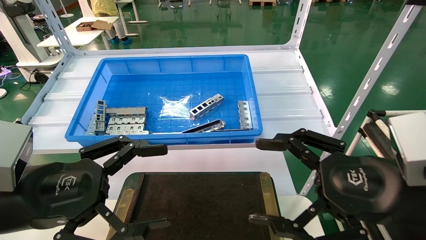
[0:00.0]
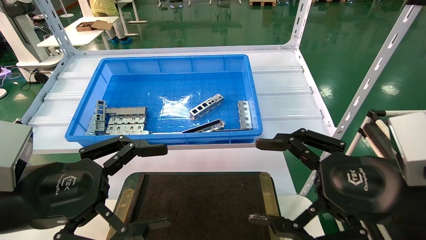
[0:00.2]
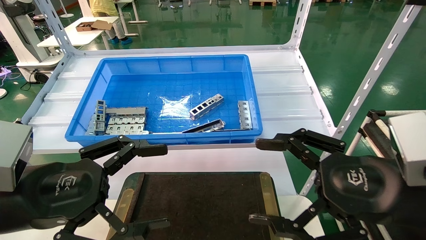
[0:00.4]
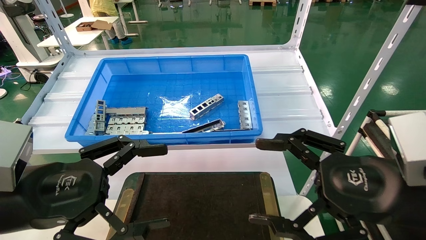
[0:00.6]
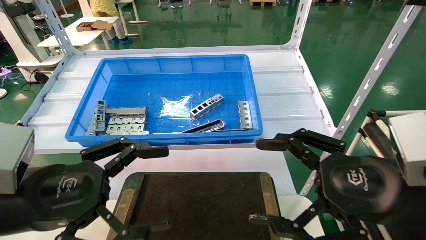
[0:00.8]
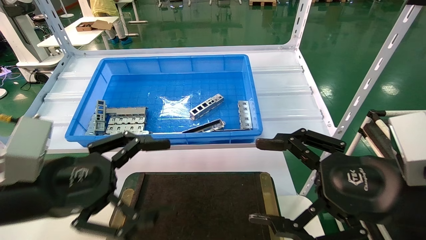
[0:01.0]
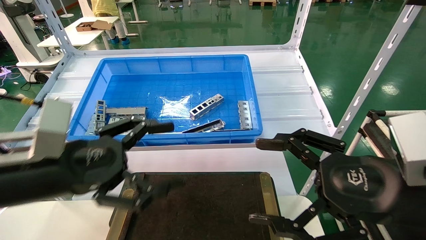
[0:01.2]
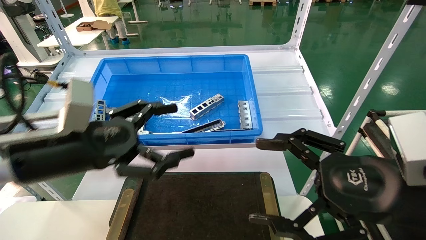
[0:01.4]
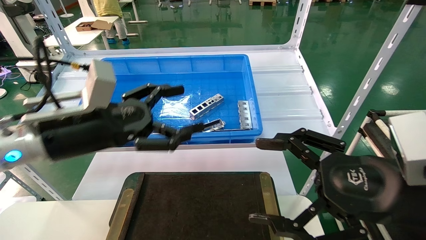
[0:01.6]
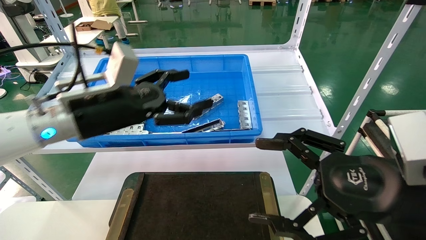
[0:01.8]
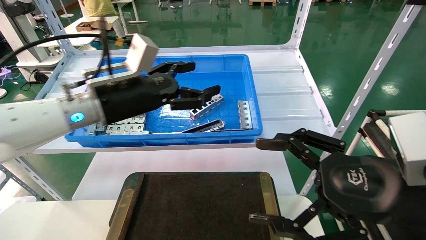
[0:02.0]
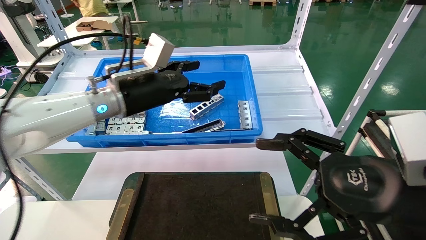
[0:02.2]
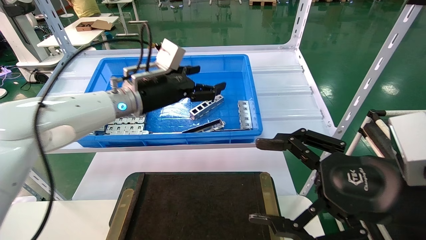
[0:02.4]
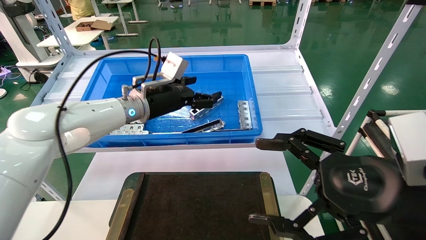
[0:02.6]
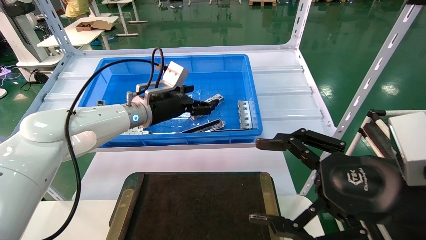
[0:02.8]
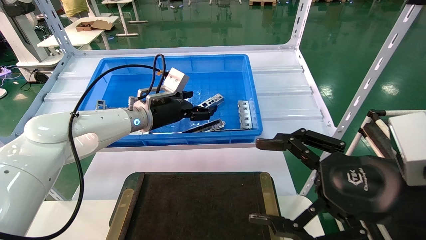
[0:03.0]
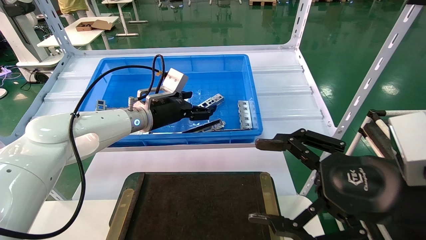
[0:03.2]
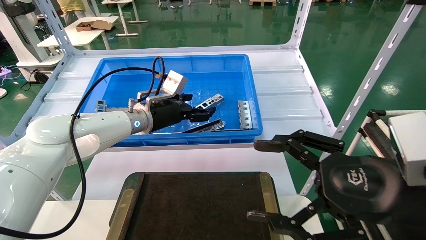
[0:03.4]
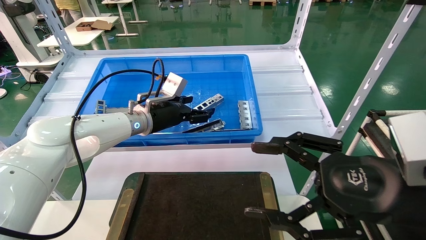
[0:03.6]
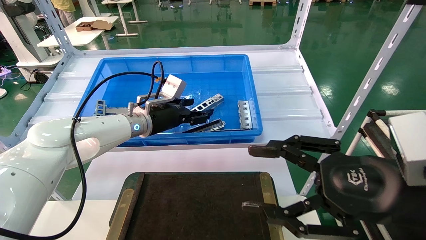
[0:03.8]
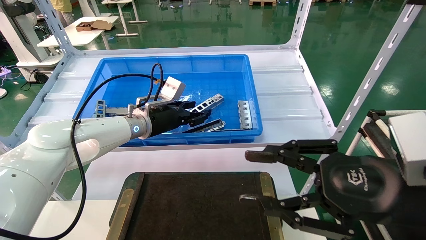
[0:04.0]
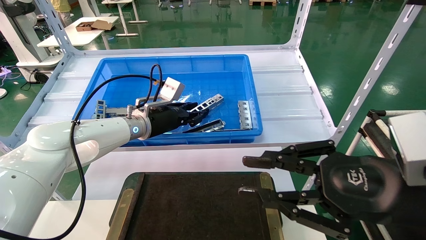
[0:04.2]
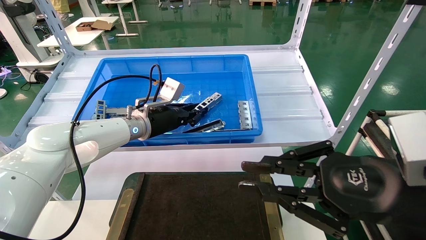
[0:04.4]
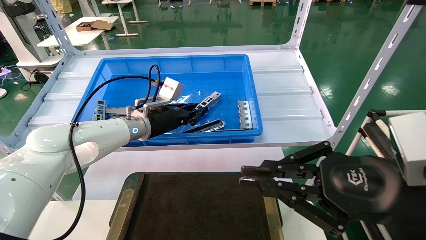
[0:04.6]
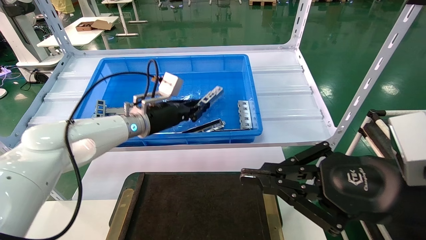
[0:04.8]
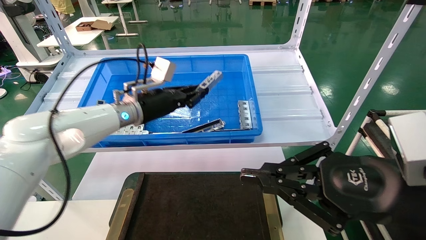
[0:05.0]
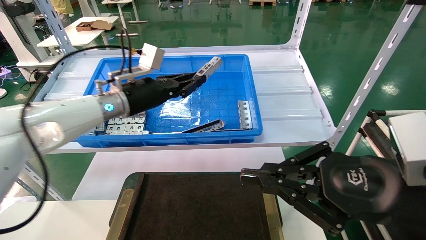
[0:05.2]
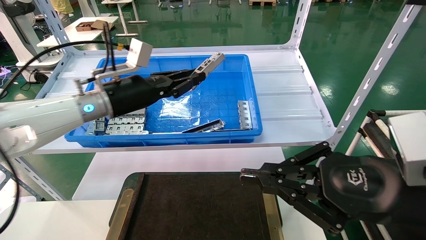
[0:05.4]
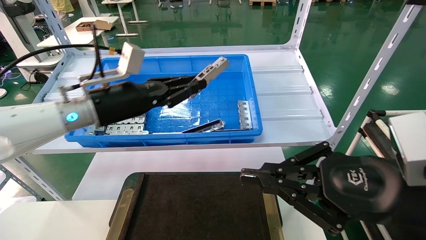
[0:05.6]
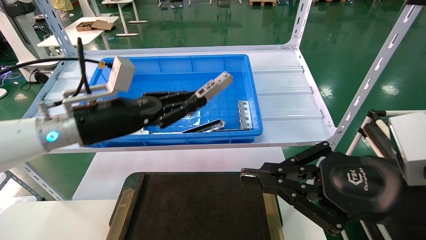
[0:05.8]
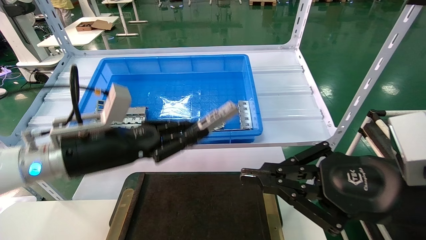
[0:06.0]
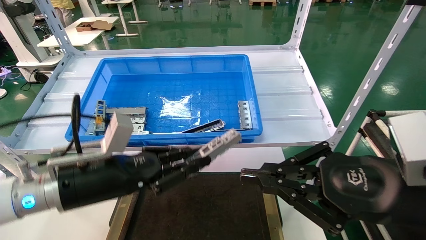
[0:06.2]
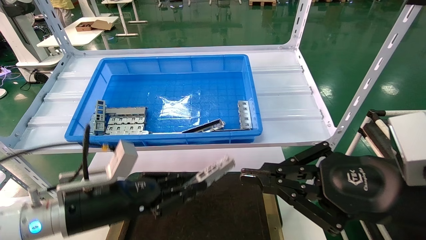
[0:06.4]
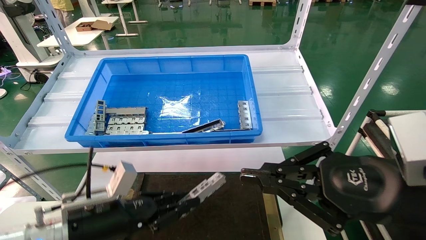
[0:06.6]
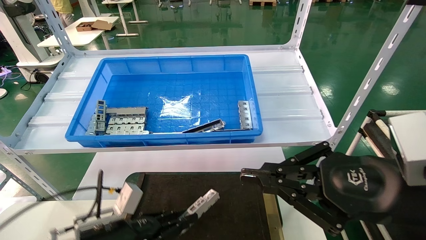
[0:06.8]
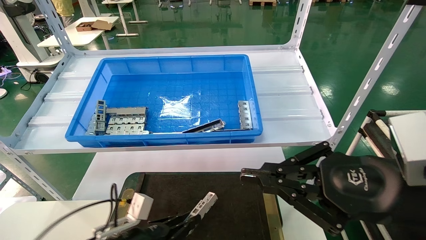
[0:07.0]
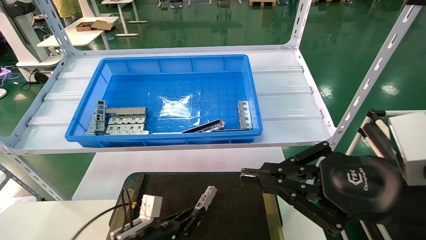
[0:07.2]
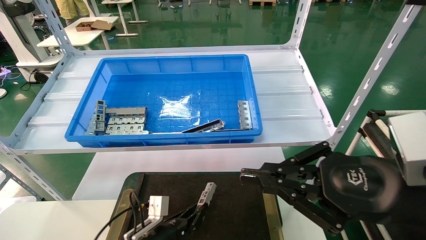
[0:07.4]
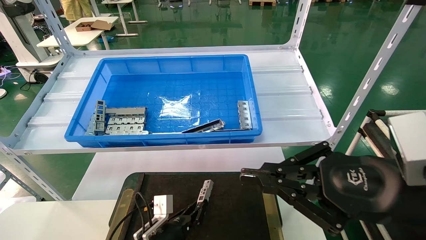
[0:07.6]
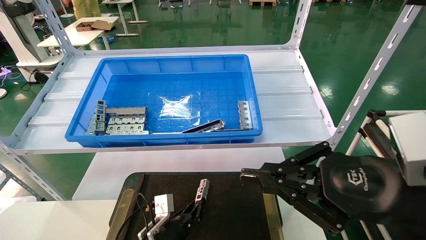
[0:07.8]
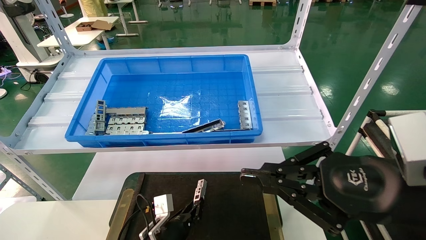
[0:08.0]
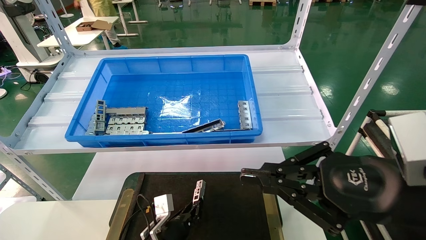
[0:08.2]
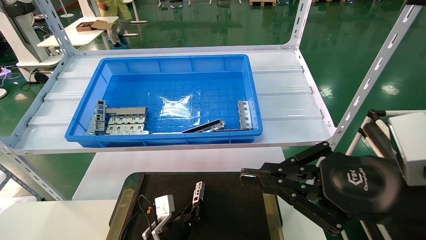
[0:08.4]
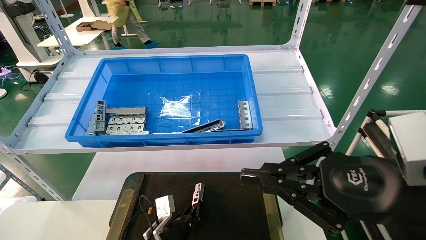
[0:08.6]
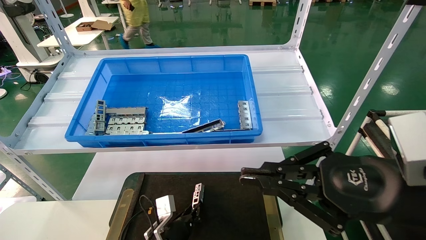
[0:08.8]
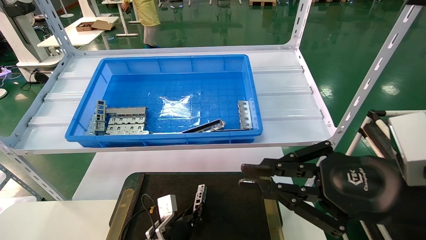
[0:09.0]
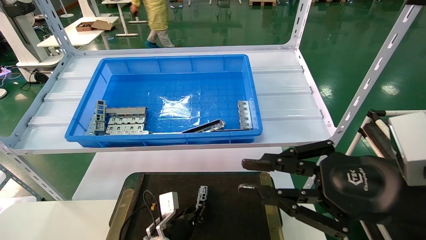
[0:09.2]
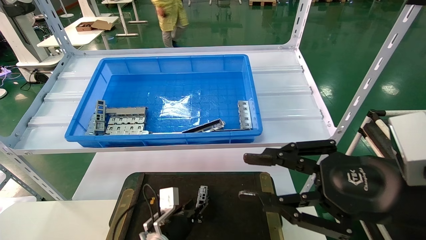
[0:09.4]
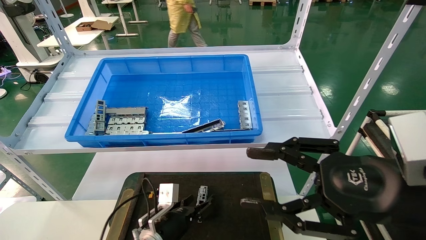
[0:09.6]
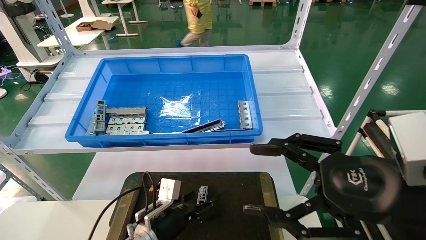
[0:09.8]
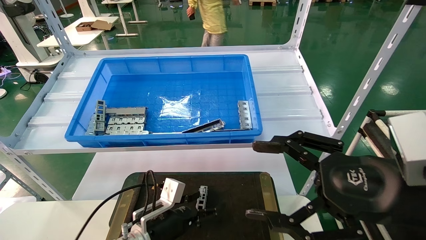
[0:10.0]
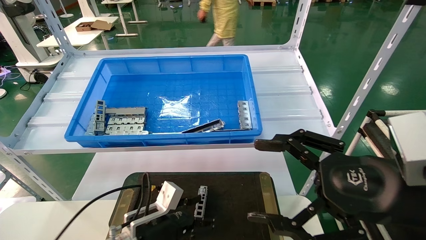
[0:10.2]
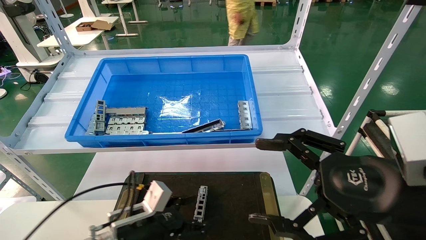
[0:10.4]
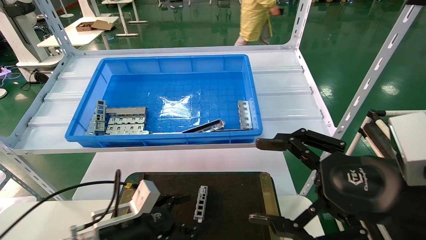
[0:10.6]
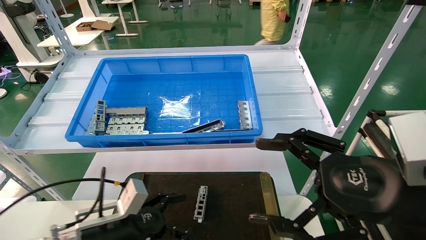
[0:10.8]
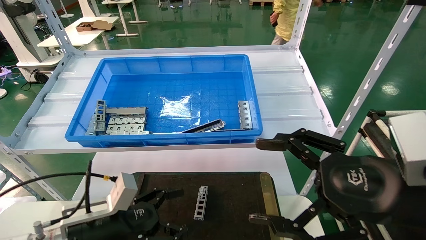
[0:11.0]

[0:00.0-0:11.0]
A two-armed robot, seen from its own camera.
Task of the whole recording: Grasp the part with one hand and place it on the black container.
Step, 1.0 to 5.4 s: Pick up the front USB bracket from the feeding area.
Step, 5.6 to 9.2 s: Place the front USB bracket into the box.
0.0 to 1.6 s: The left gripper moves forward, some 10 cm.
1.6 to 3.2 s: The left gripper heads forward, covering some 20 cm.
3.2 to 4.8 s: The right gripper closes up. Meanwhile the left gripper closes.
4.8 to 6.2 s: The left gripper heads backward, covering about 20 cm.
6.2 to 7.8 s: The left gripper goes roughly 25 cm downward.
7.8 to 9.4 s: There are only small adjustments of the grippers.
9.4 to 11.0 s: The left gripper heads upward, to the left and backward, covering some 20 cm, and opens up. Meanwhile the right gripper opens its fingers.

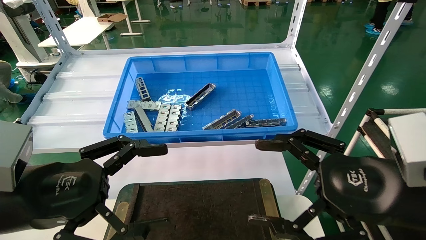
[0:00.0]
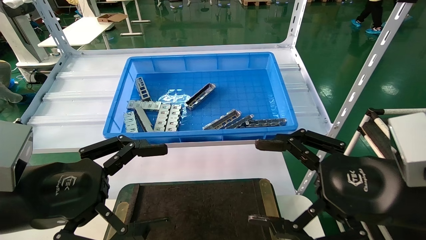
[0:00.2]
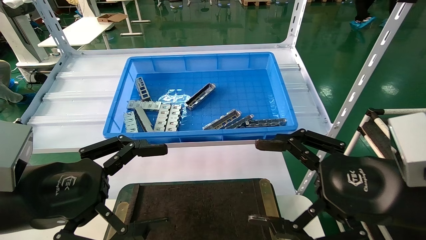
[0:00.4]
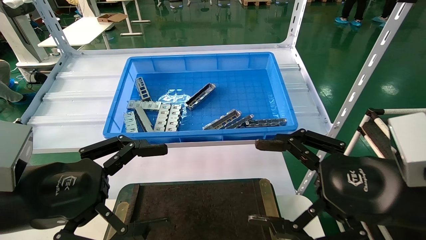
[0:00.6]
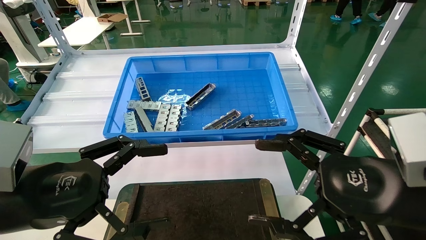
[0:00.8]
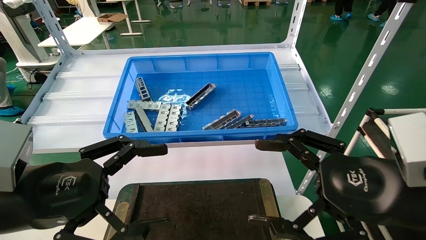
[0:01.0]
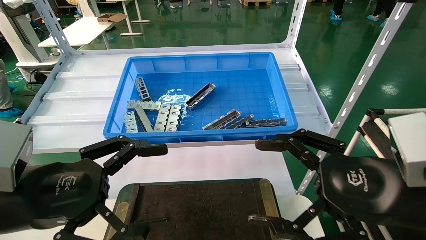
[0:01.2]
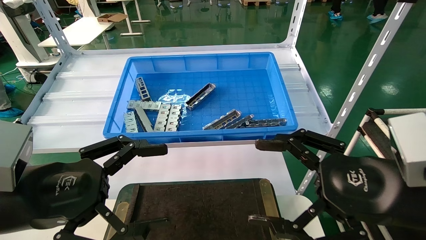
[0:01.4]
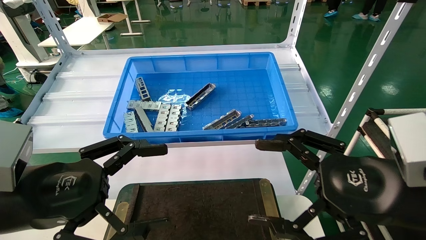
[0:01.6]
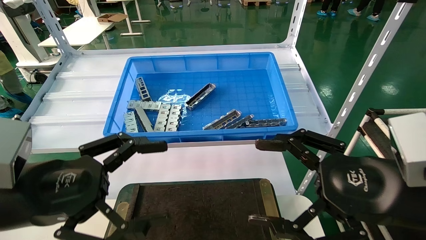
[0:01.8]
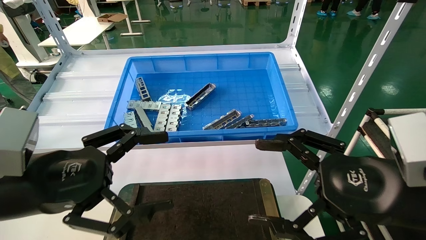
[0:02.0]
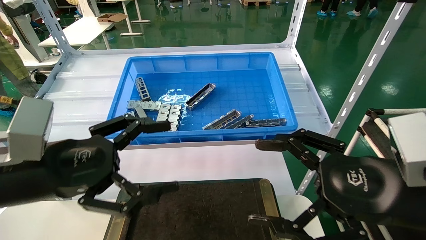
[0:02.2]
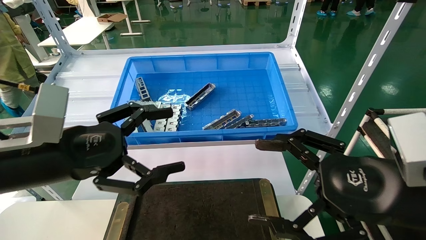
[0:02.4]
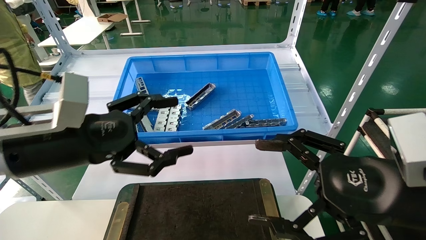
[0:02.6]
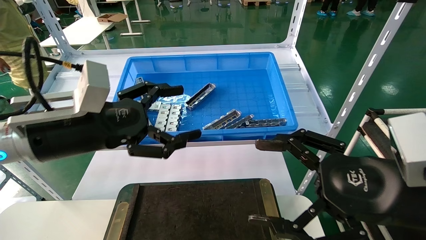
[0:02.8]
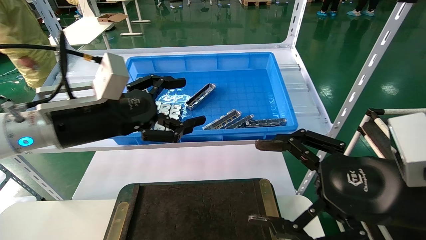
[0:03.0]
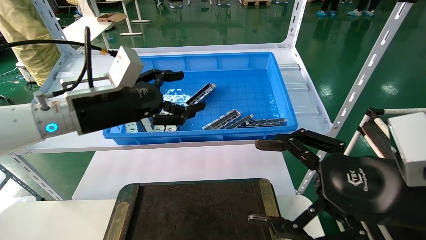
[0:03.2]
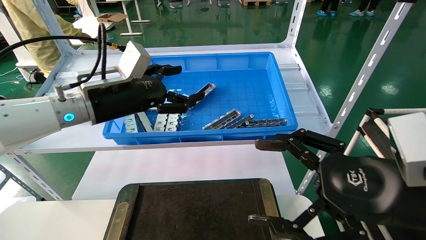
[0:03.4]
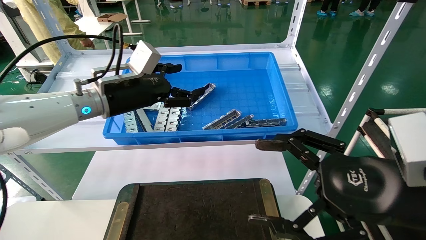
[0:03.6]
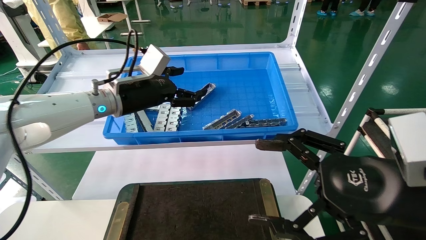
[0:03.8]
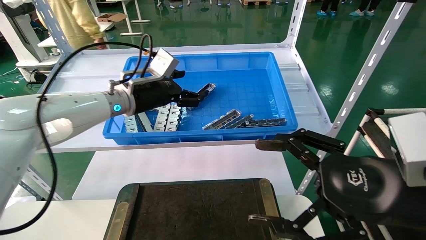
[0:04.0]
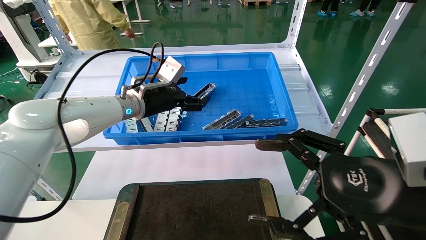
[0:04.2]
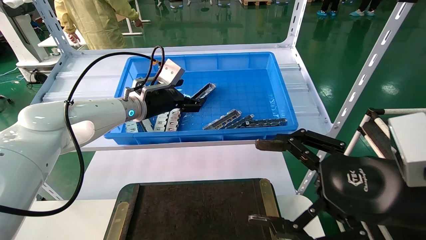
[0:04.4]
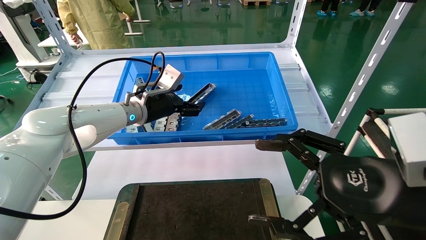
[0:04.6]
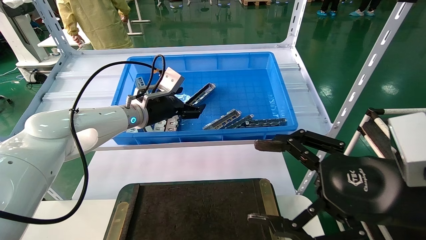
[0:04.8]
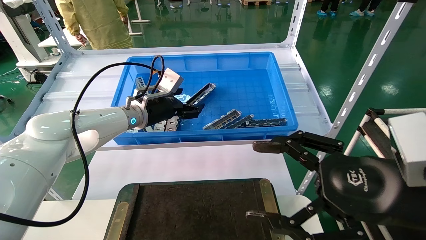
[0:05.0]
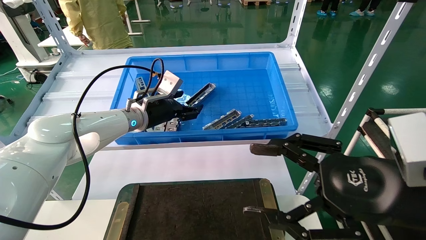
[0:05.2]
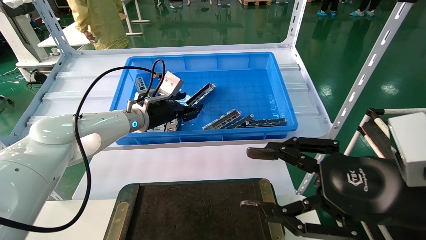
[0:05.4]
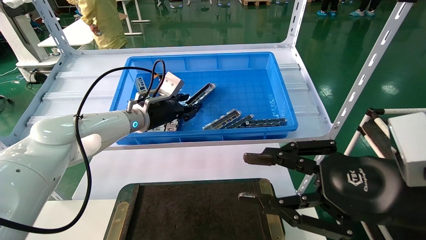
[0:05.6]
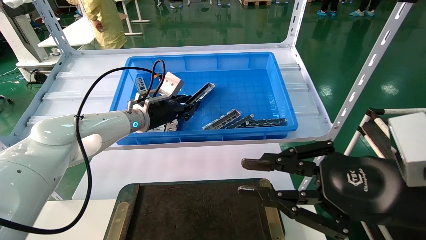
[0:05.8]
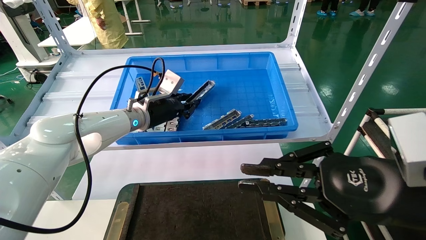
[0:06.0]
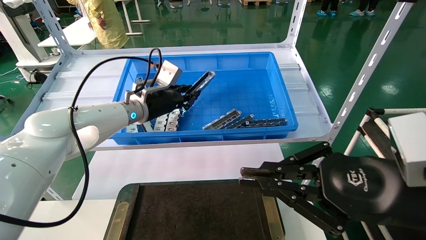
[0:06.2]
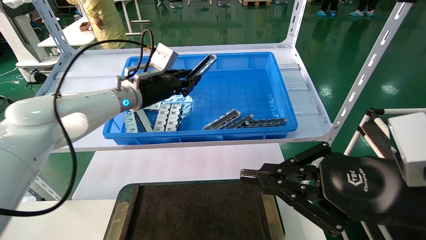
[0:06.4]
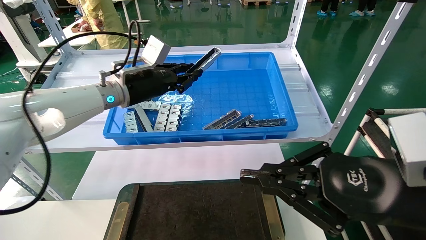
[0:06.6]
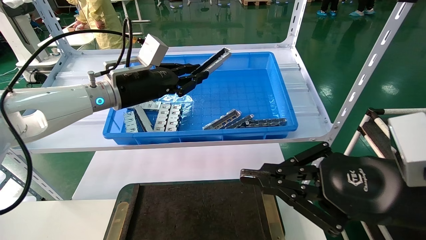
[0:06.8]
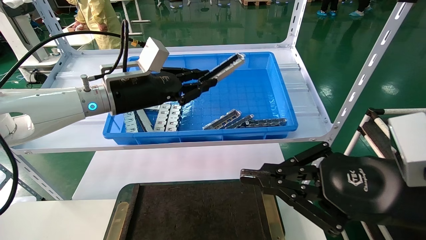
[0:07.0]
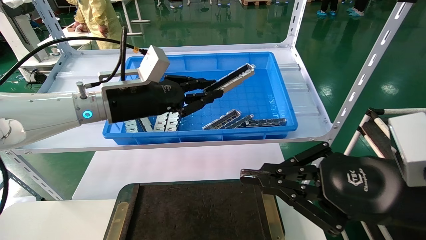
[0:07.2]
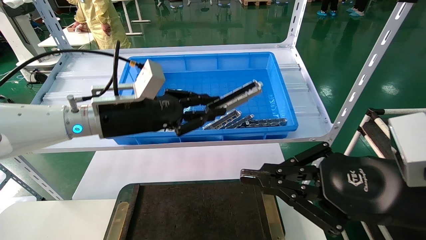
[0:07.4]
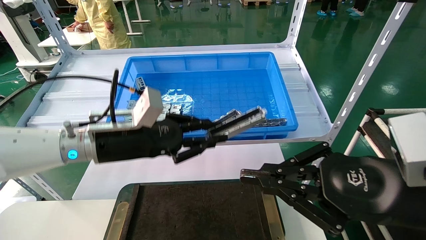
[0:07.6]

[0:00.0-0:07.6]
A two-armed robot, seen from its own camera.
Task of the whole recording: Grasp the part with one hand and place it on the black container.
Step, 2.0 to 5.8 s: Pick up the front USB bracket from the feeding area.
0.0 to 1.6 s: Neither gripper changes place.
1.6 to 3.0 s: The left gripper moves forward and upward, approximately 15 cm.
3.0 to 4.6 s: The left gripper heads forward, covering approximately 20 cm.
4.6 to 6.0 s: The right gripper closes up; the left gripper closes up.
6.0 to 7.6 s: The left gripper shifts approximately 15 cm backward.
